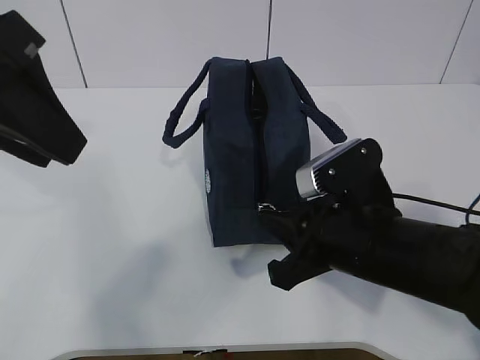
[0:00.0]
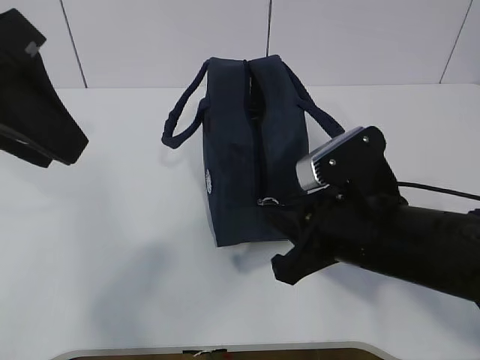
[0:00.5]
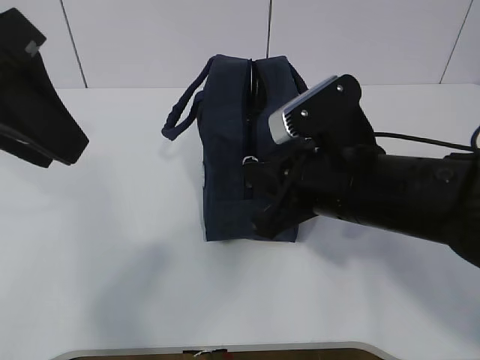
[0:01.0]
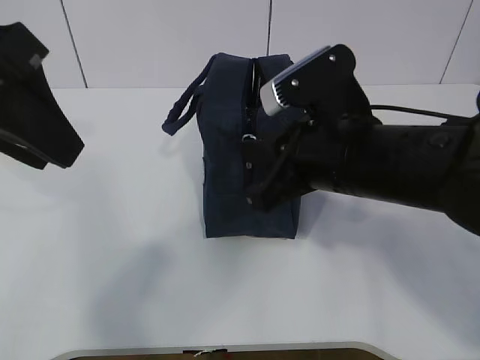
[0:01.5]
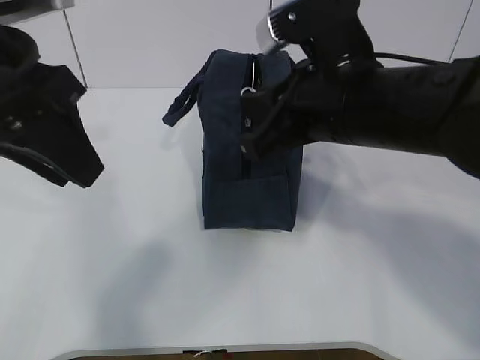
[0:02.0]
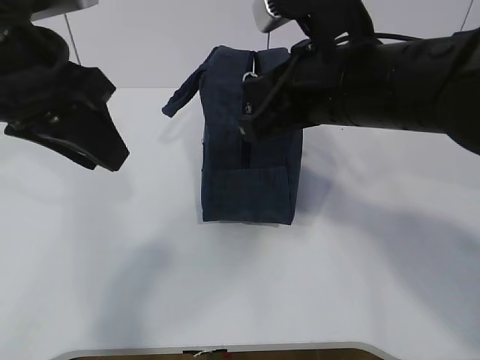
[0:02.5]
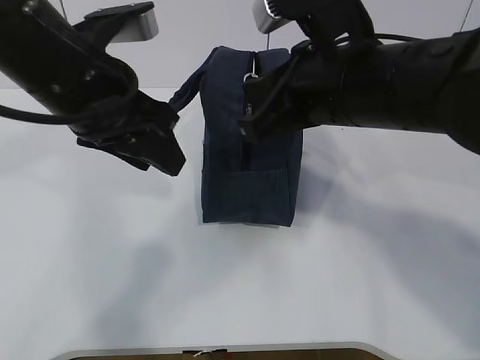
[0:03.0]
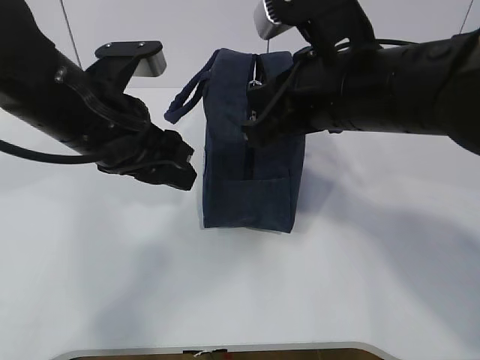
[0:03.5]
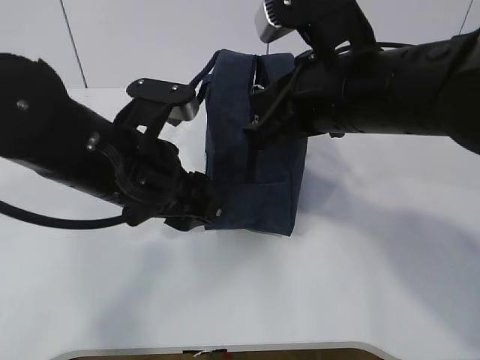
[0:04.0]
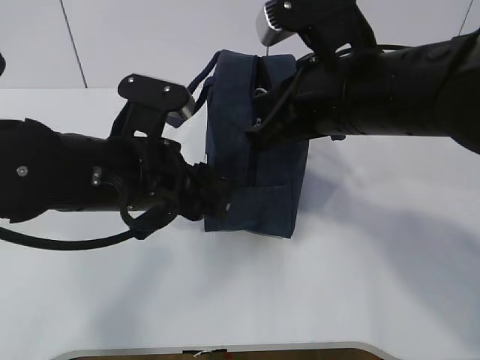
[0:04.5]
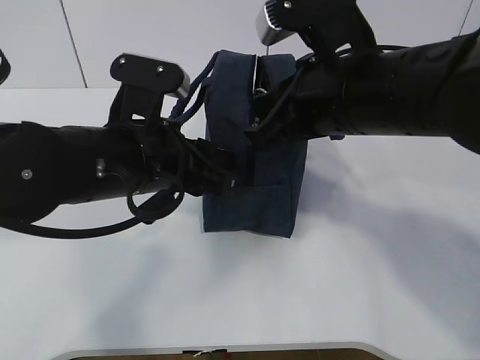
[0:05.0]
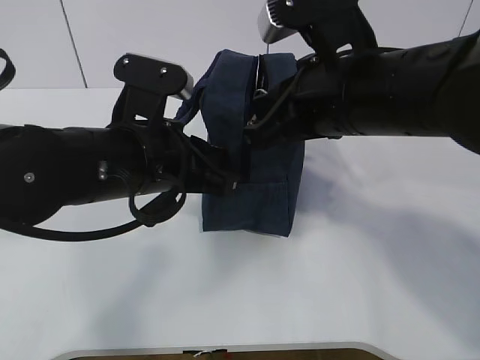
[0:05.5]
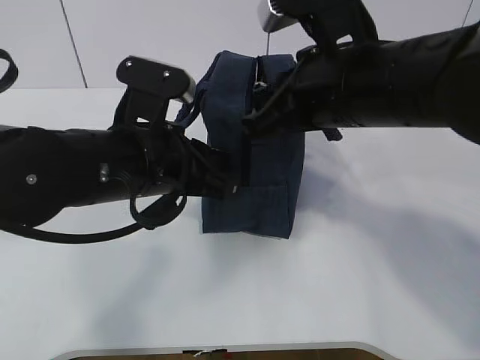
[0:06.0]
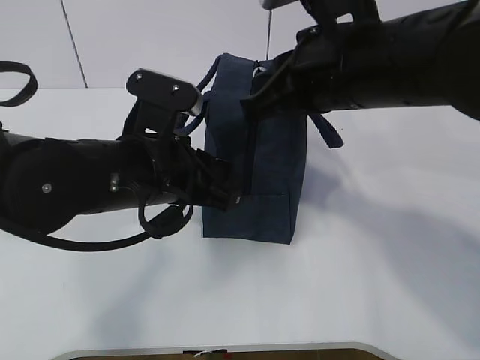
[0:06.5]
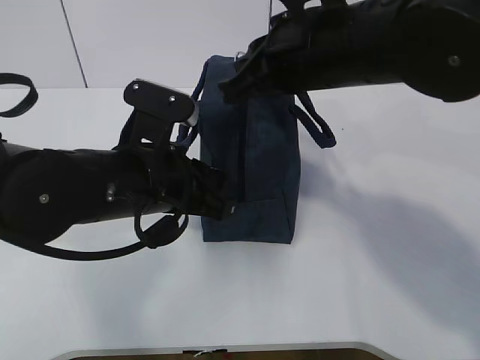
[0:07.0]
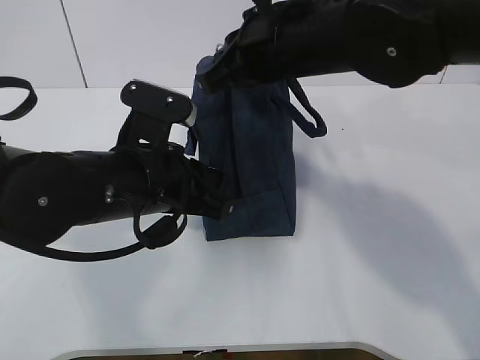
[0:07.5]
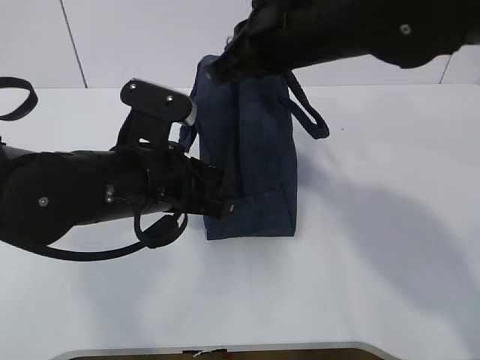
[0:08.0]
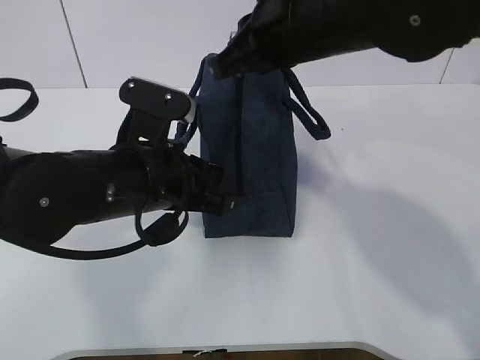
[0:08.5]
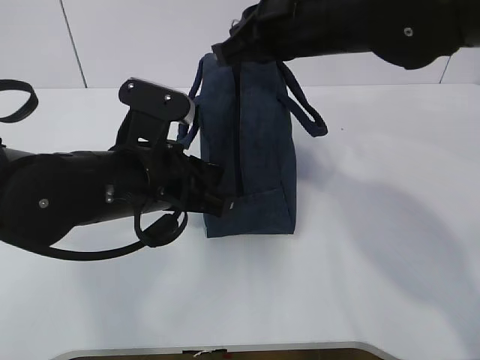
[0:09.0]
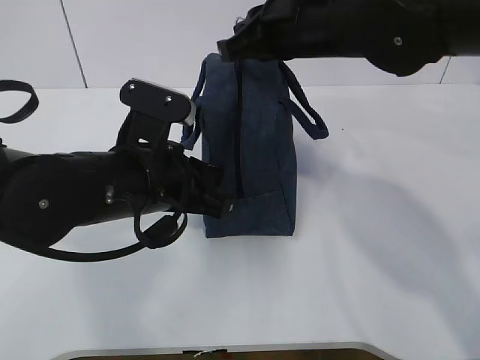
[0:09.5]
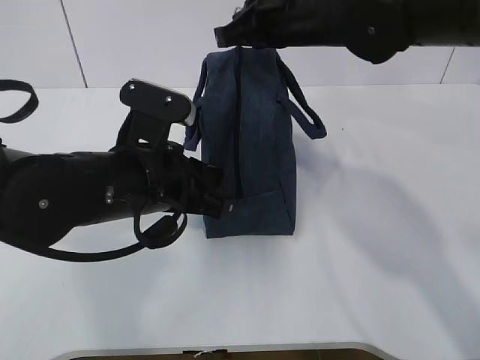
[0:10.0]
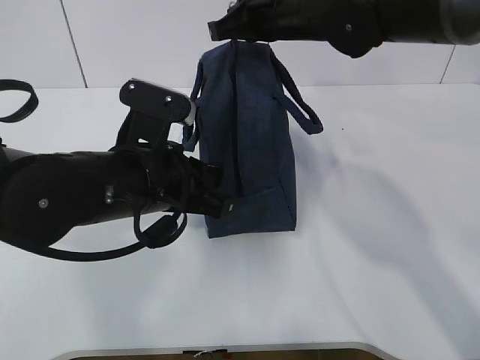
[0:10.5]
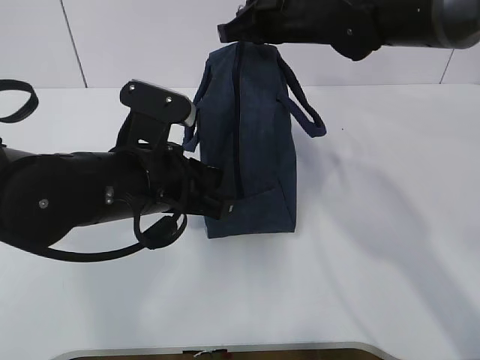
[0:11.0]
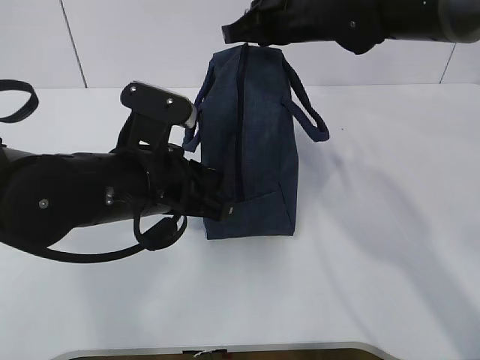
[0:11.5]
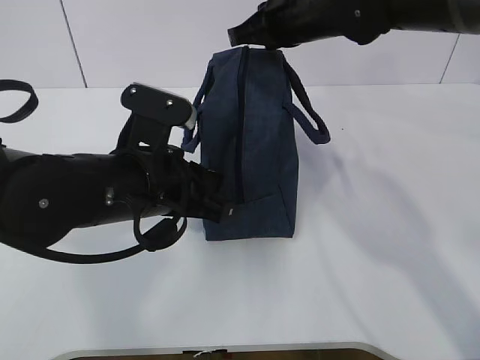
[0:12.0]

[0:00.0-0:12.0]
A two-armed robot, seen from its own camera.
Step, 0:00.0 to 0:02.5: Grab the lunch bag with your left hand.
0:00.0 to 0:02.0: The right gripper travels upward by roughly 10 cm.
0:02.0 to 0:04.0: The left gripper shifts about 15 cm downward and to the right.
0:04.0 to 0:06.0: The left gripper closes.
0:06.0 to 0:08.0: The right gripper heads forward, covering approximately 5 cm.
0:08.0 to 0:10.0: The right gripper heads forward, covering about 5 cm.
0:10.0 to 0:12.0: The grippers make only small movements.

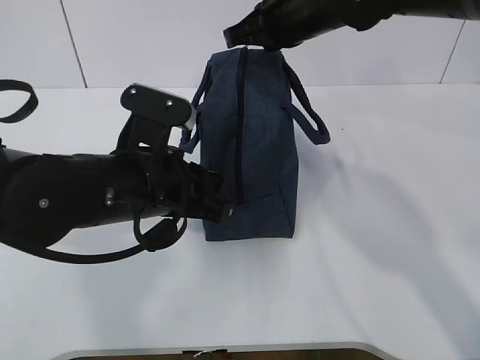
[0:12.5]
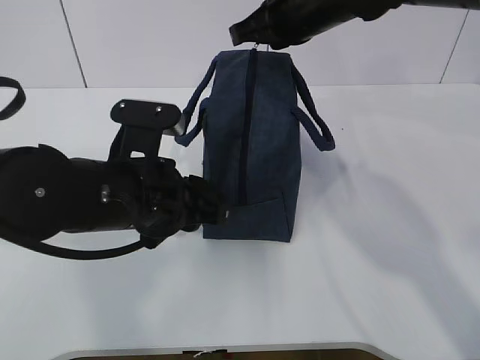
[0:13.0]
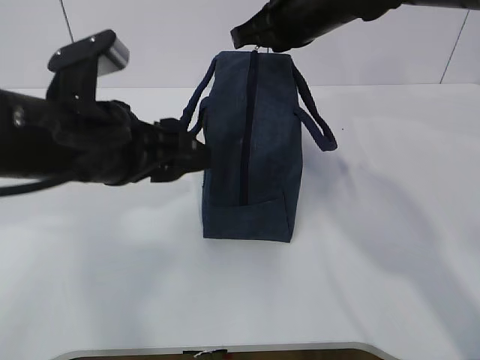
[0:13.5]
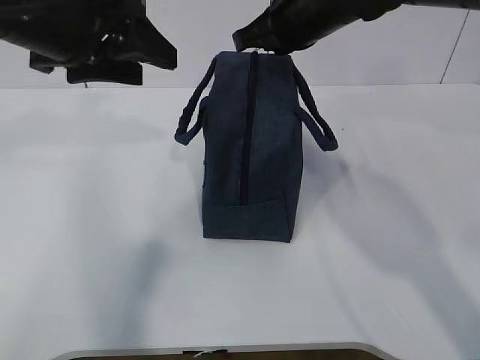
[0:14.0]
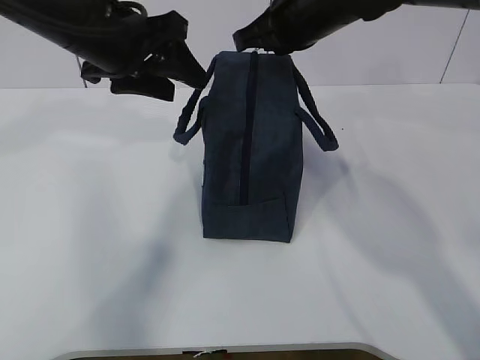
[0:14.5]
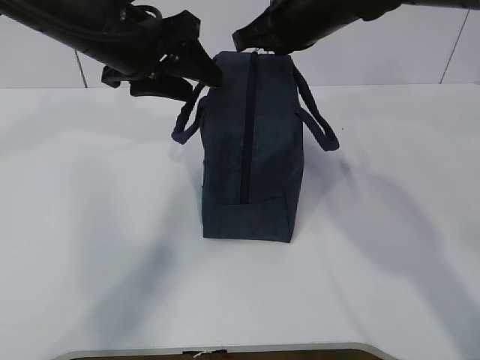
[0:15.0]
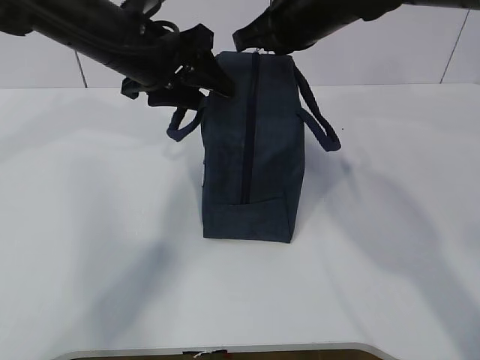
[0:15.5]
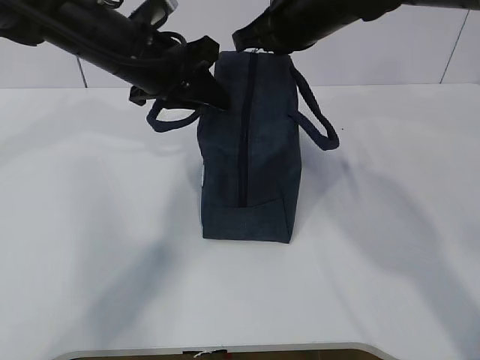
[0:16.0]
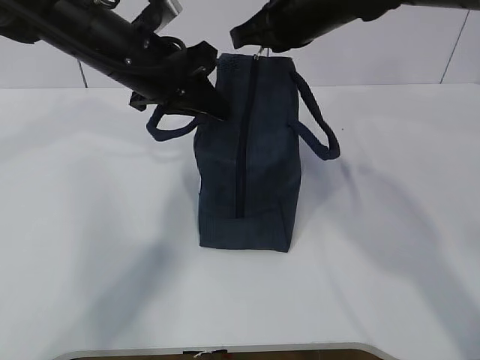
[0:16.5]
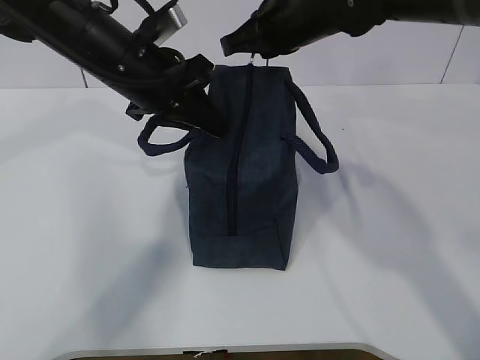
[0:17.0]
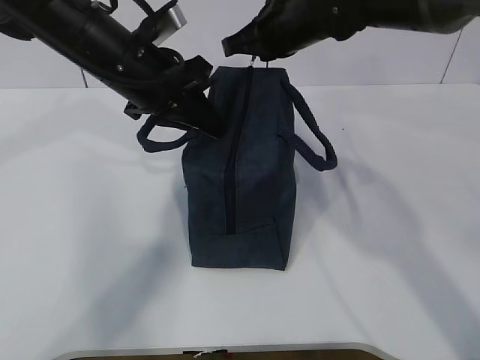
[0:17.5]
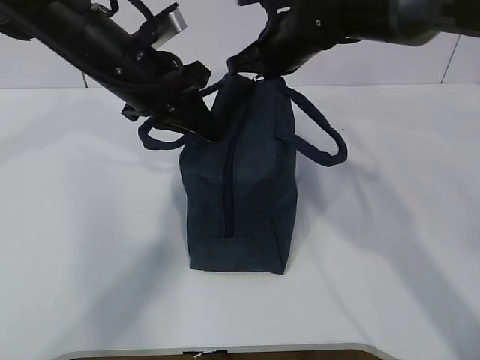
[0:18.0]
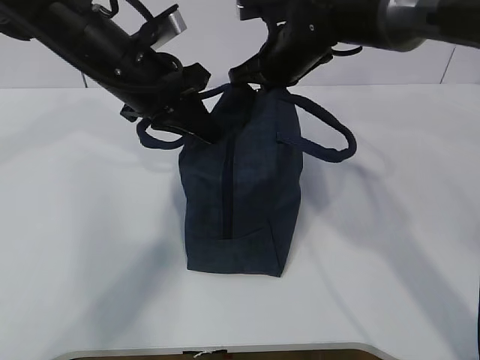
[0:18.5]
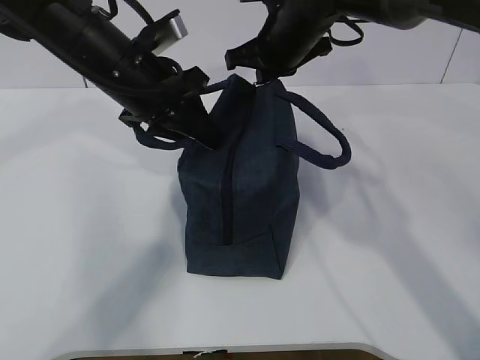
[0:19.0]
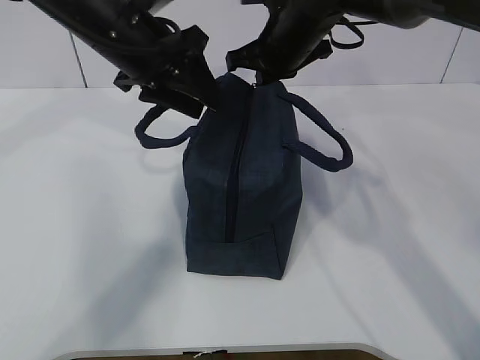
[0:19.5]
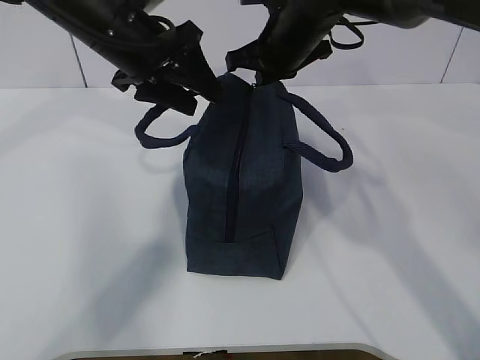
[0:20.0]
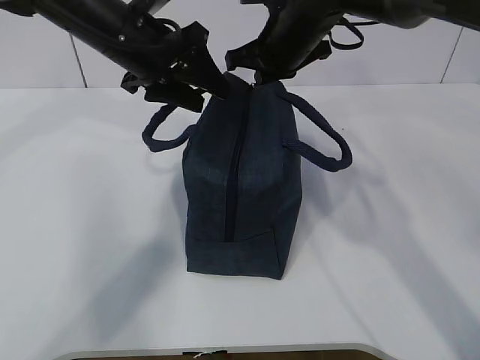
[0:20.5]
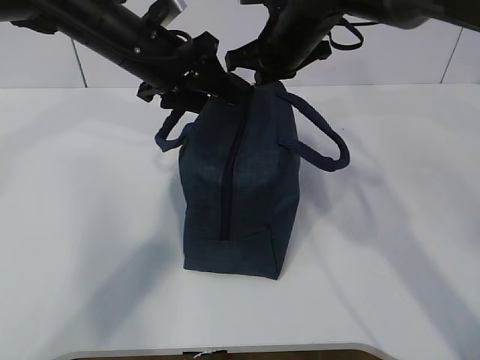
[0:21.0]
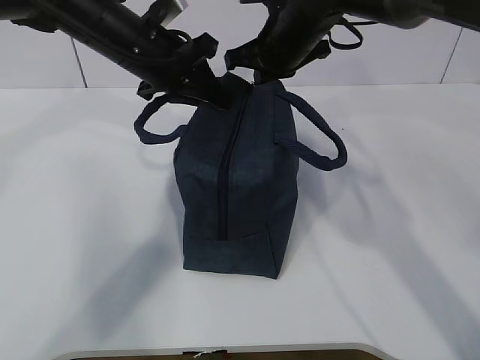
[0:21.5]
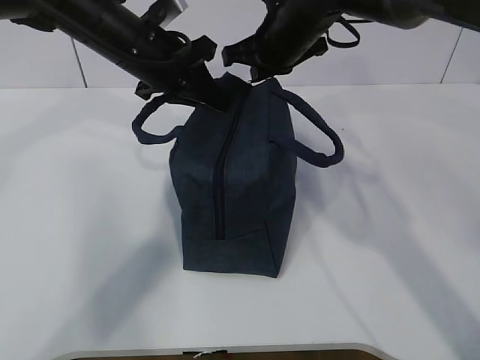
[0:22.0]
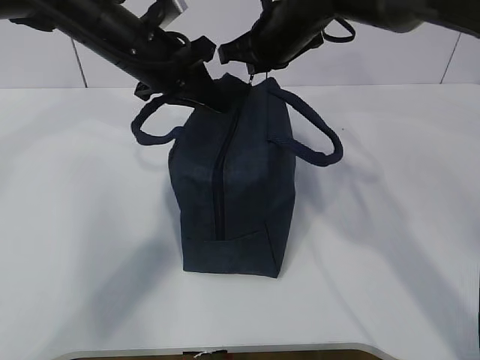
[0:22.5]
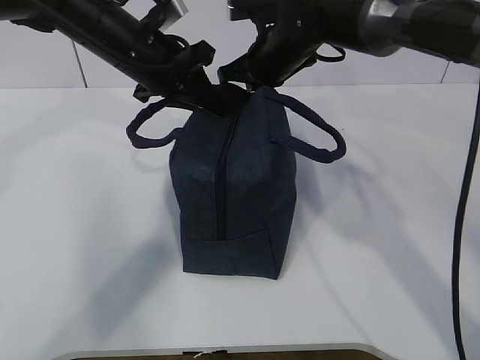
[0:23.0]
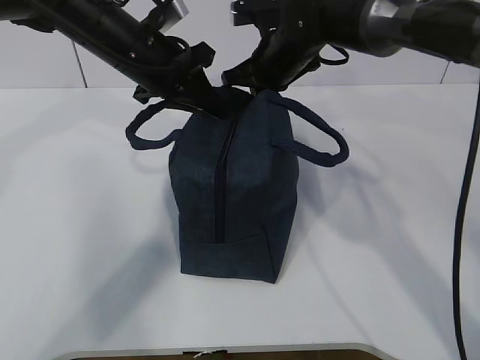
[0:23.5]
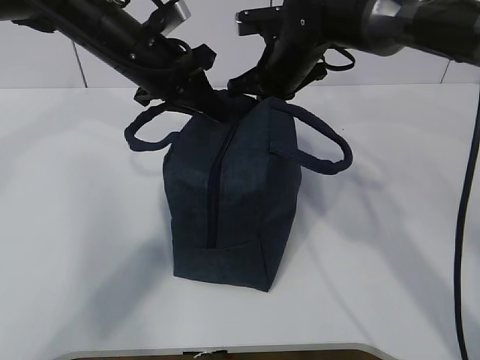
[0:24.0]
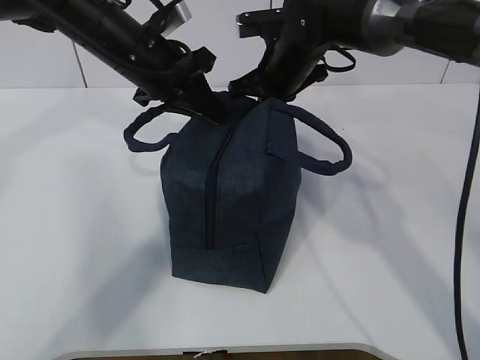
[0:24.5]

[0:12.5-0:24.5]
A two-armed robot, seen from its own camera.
Step, 0:13.0 to 0:14.0: Grab the lunch bag with your left hand.
0:12.5 to 0:14.5: The left gripper shifts some 15 cm upward and forward, and opens its fingers.
0:14.5 to 0:16.5: The left gripper changes place by approximately 5 cm, and closes its fingers.
0:16.5 to 0:18.5: The right gripper shifts about 10 cm downward and forward.
0:18.5 to 0:20.5: The left gripper opens up.
0:20.5 to 0:22.5: The left gripper closes up.
0:22.5 to 0:24.5: There are only small adjustments of the grippers.

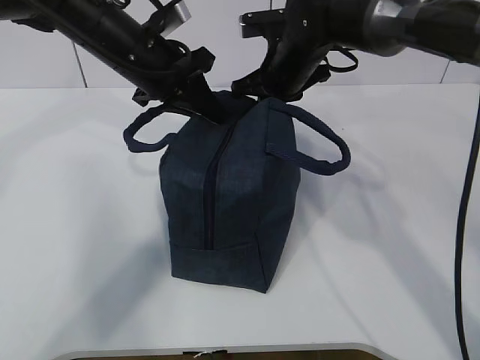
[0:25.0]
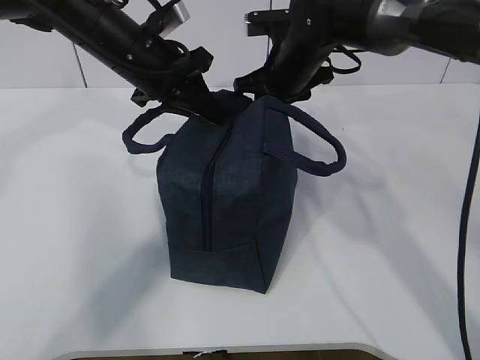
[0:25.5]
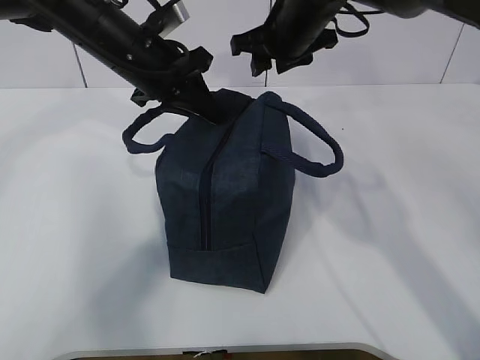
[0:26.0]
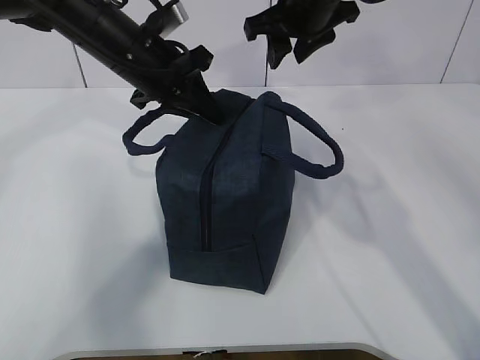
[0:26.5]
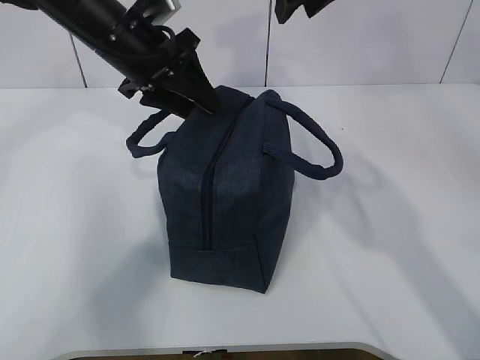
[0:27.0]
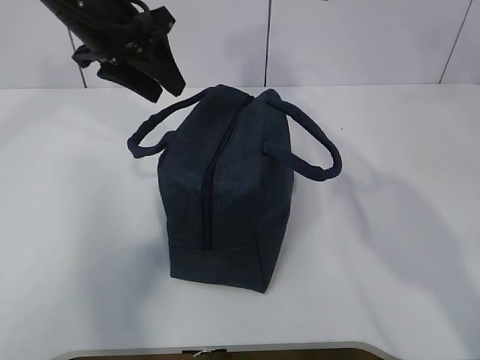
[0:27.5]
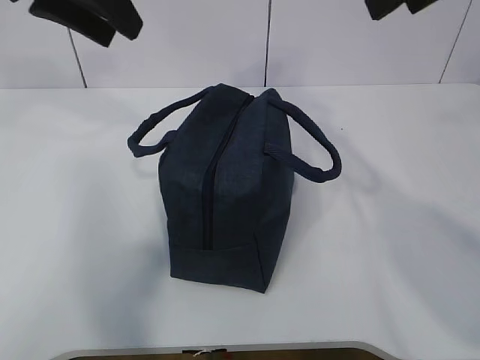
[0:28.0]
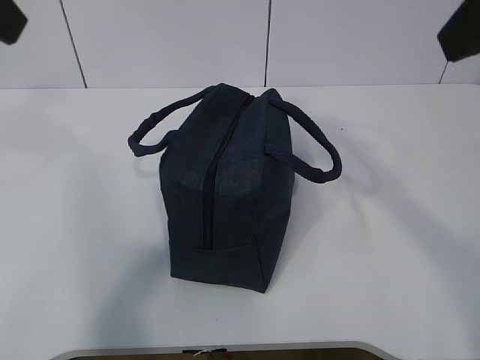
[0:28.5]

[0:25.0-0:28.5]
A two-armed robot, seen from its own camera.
0:25.0 to 0:27.0: The left gripper opens; the right gripper heads upward, covering roughly 15 cm, and opens up.
0:27.0 to 0:28.5: The left gripper goes about 25 cm backward, upward and to the left; the right gripper travels backward by about 25 cm.
